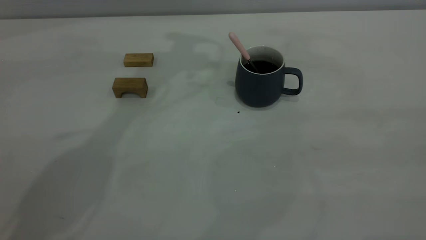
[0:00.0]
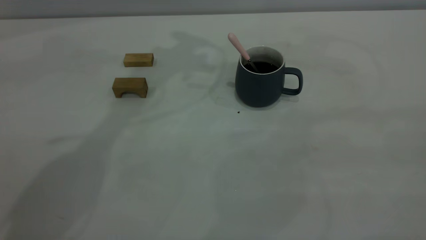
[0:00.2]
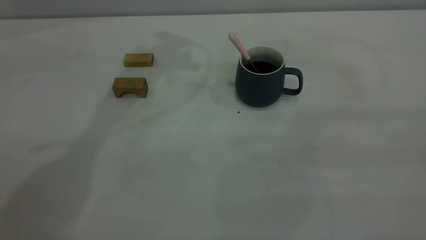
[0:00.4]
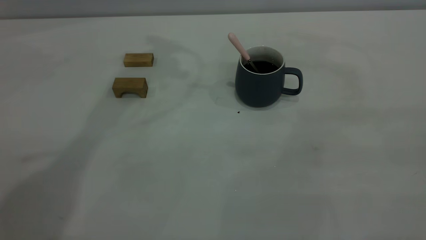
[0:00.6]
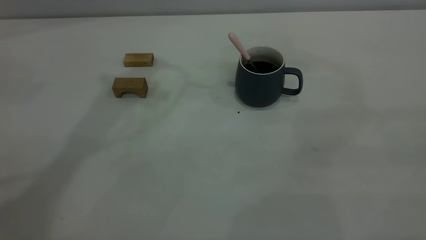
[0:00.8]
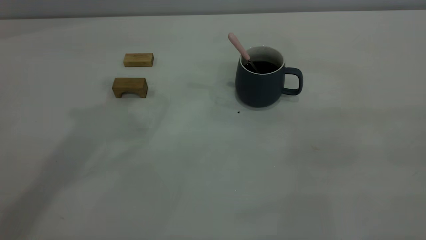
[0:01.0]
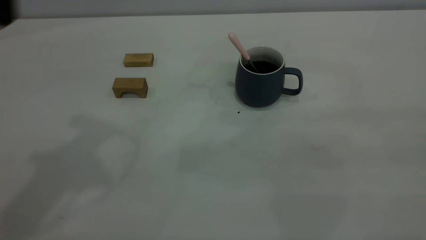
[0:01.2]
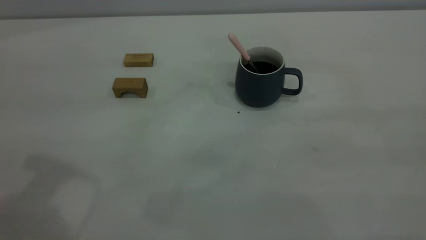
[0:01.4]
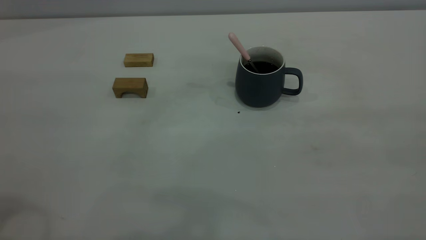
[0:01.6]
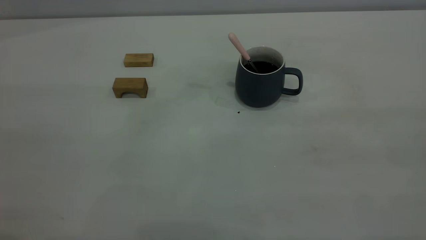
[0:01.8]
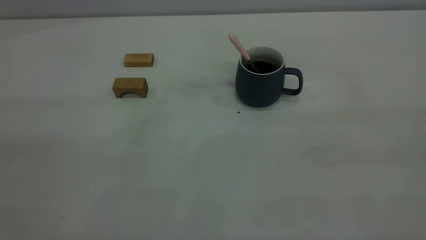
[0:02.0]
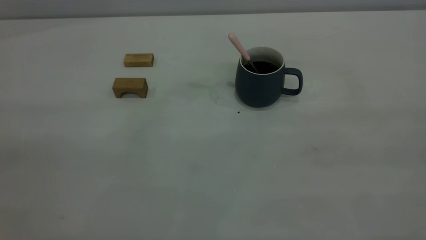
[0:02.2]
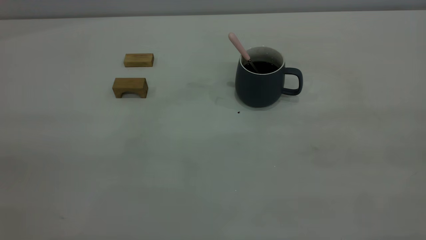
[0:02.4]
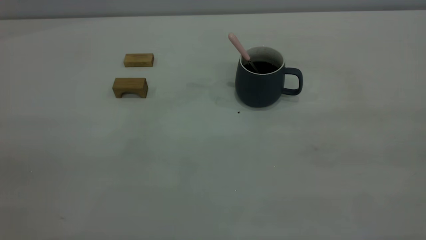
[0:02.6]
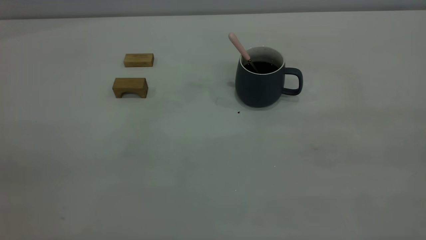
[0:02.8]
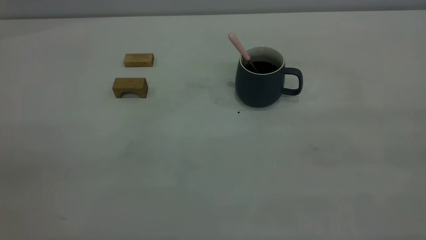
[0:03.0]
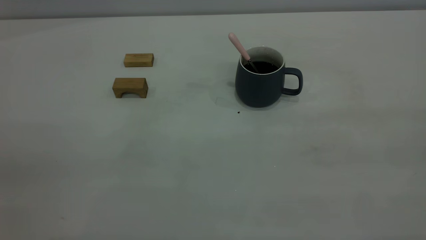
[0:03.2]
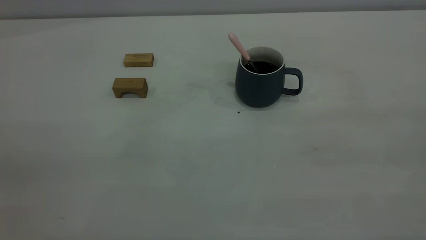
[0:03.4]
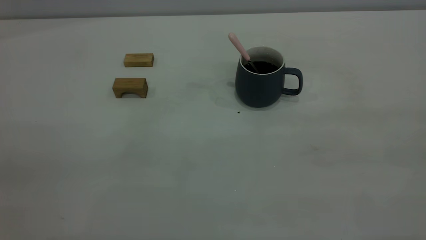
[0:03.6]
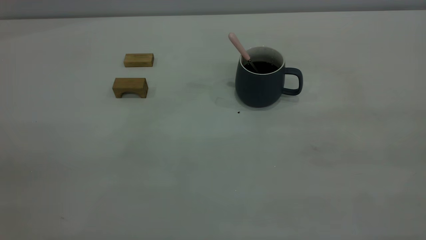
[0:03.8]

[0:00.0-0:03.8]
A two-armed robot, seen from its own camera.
0:02.6 to 0:03.8: Neither gripper changes place.

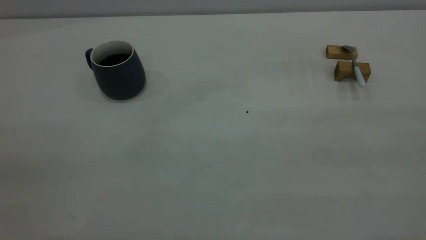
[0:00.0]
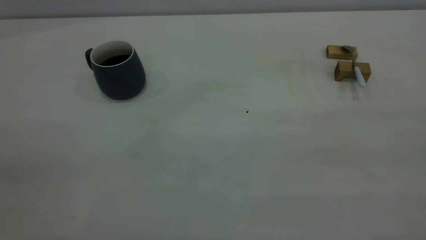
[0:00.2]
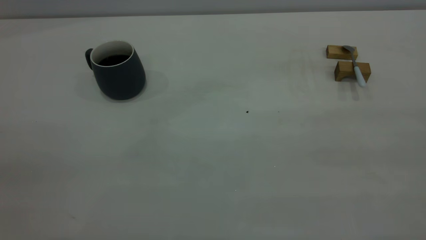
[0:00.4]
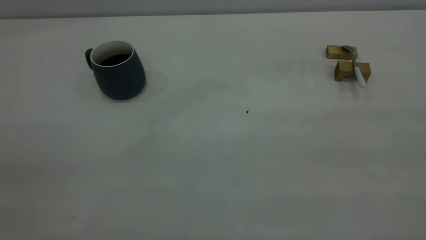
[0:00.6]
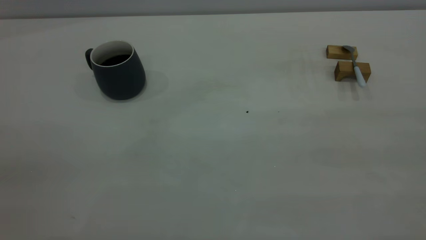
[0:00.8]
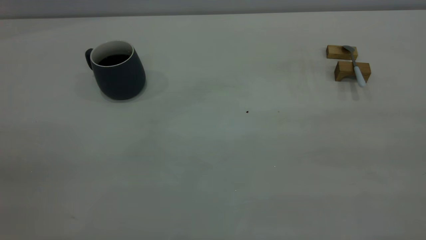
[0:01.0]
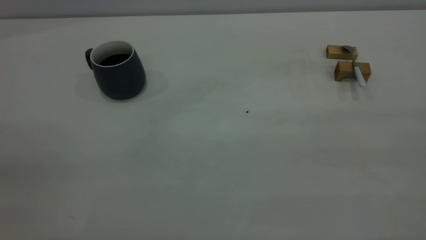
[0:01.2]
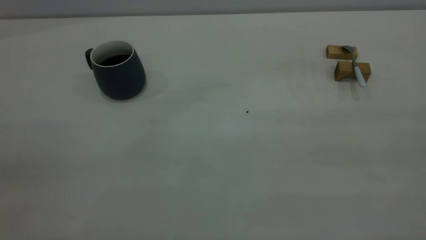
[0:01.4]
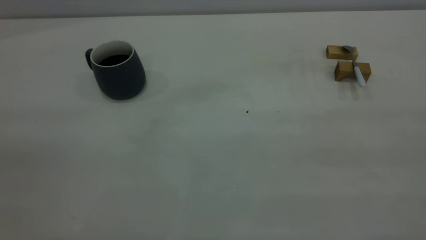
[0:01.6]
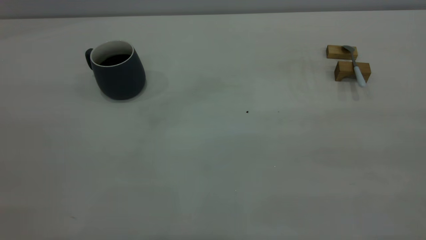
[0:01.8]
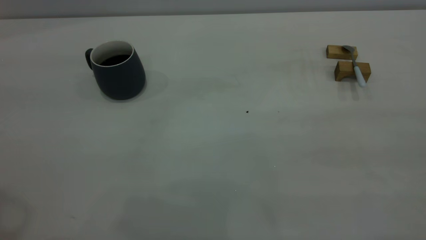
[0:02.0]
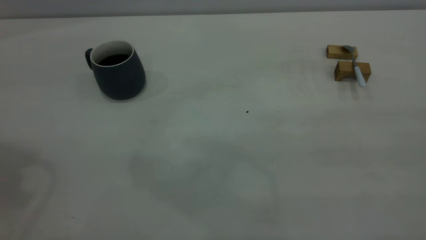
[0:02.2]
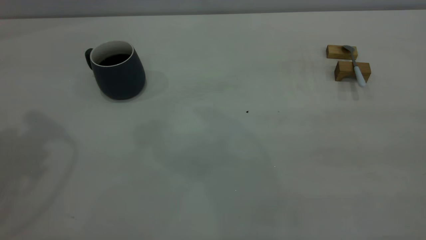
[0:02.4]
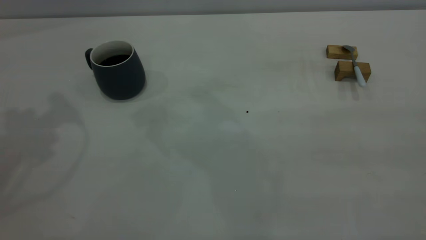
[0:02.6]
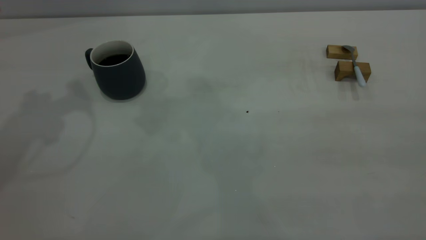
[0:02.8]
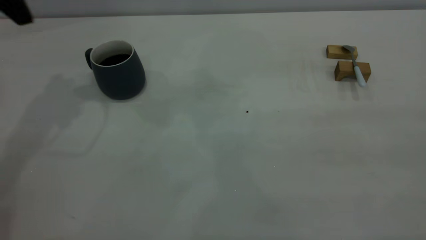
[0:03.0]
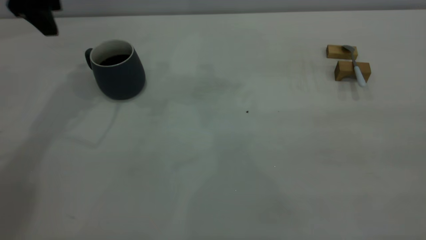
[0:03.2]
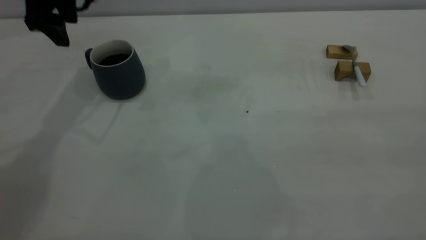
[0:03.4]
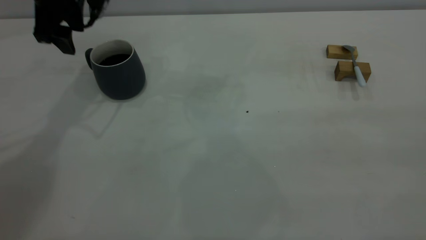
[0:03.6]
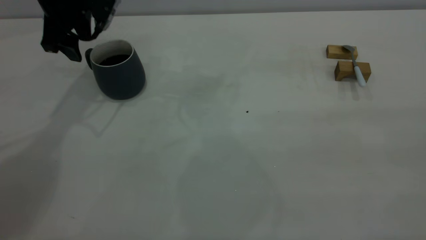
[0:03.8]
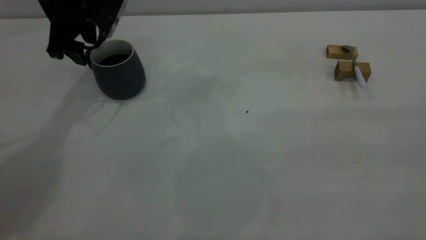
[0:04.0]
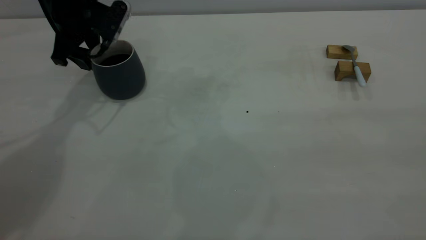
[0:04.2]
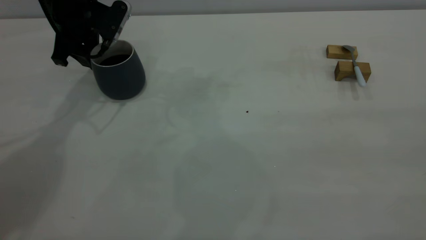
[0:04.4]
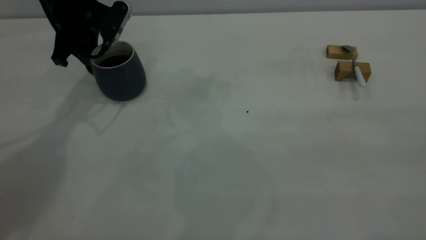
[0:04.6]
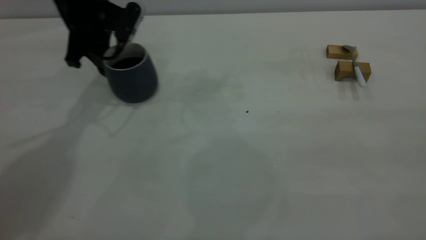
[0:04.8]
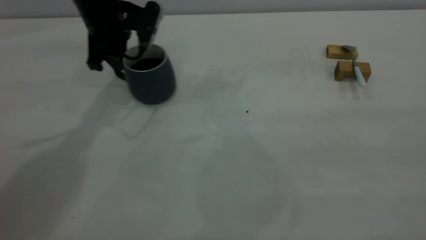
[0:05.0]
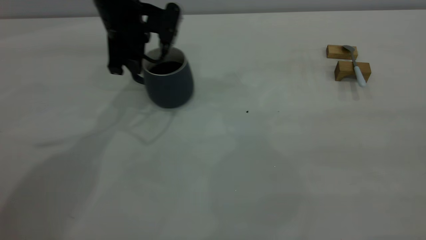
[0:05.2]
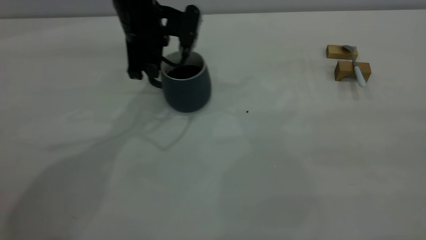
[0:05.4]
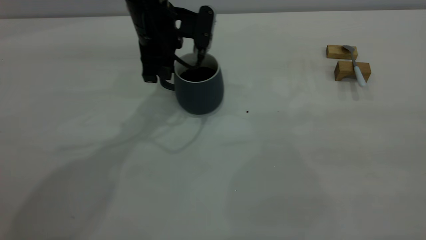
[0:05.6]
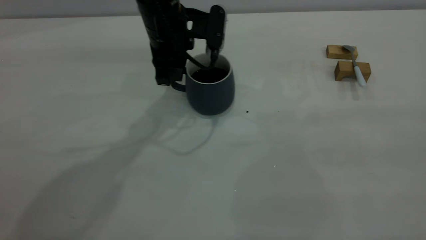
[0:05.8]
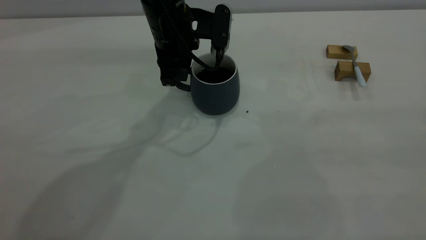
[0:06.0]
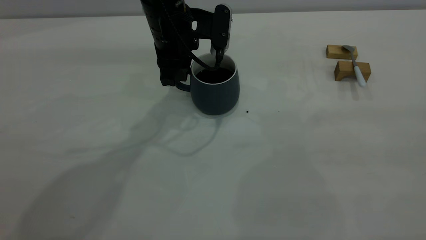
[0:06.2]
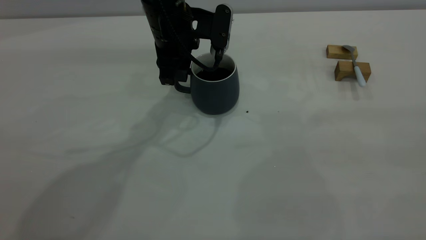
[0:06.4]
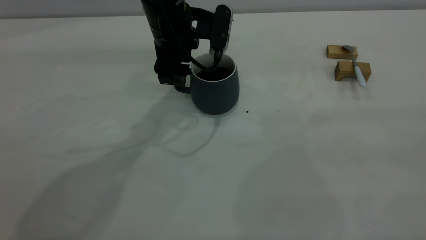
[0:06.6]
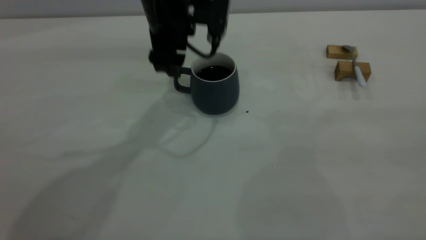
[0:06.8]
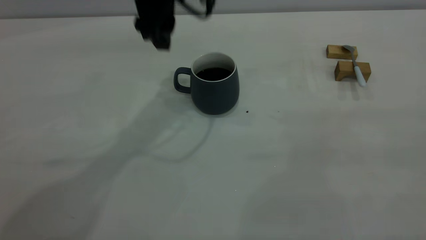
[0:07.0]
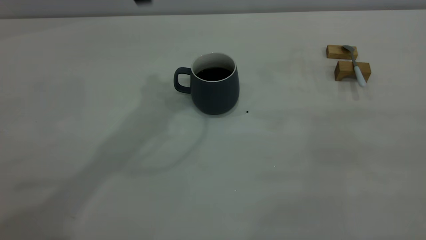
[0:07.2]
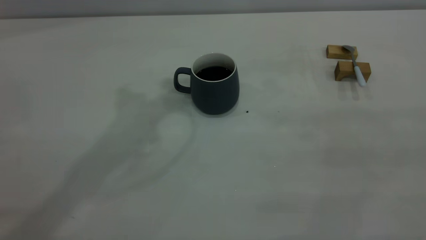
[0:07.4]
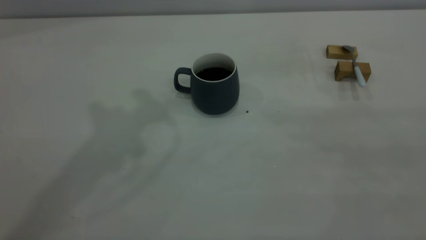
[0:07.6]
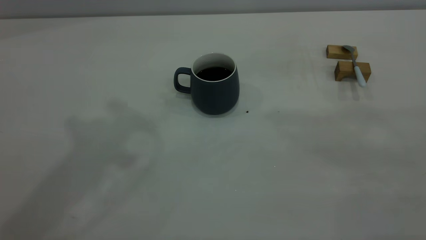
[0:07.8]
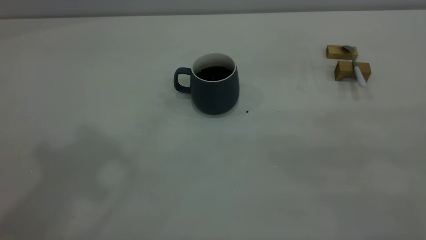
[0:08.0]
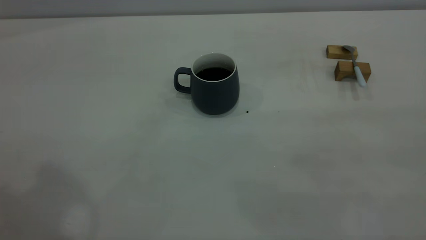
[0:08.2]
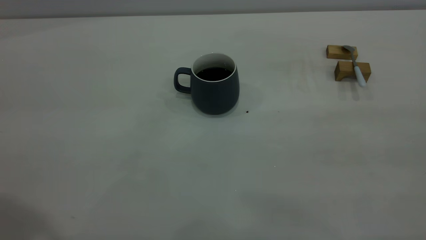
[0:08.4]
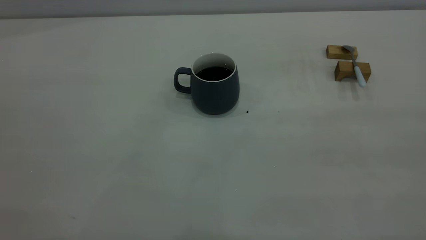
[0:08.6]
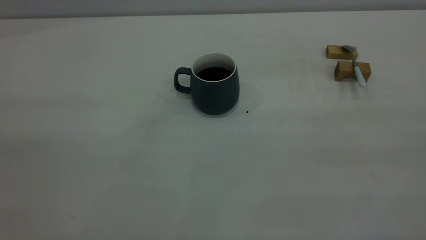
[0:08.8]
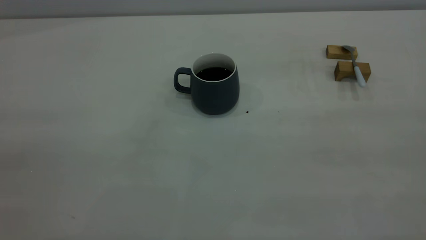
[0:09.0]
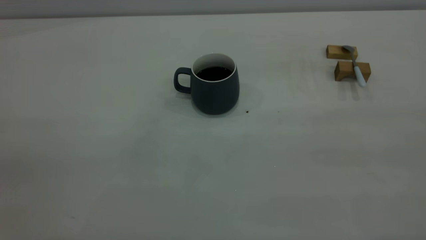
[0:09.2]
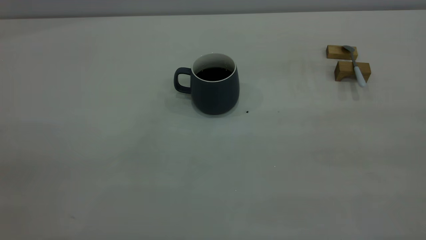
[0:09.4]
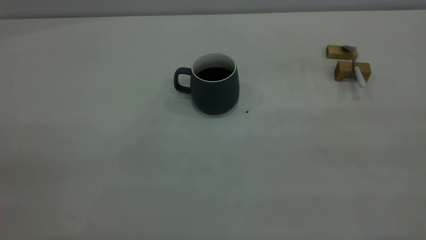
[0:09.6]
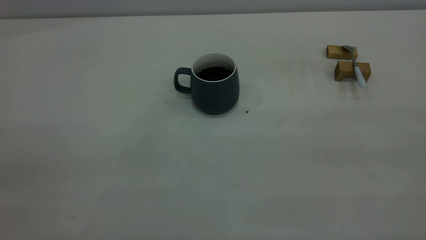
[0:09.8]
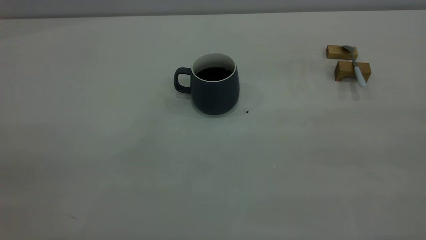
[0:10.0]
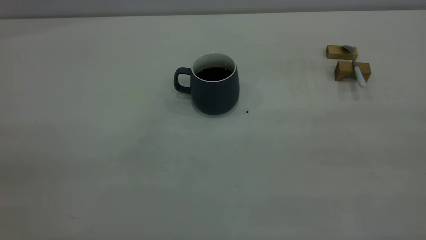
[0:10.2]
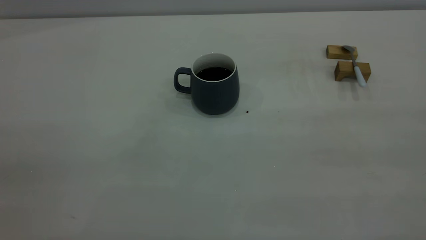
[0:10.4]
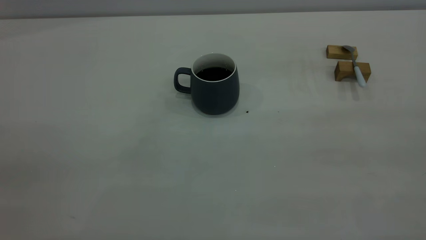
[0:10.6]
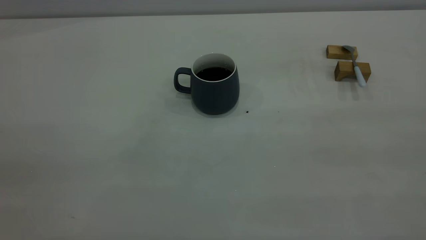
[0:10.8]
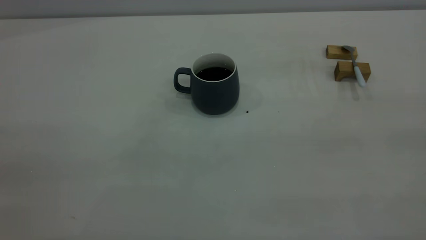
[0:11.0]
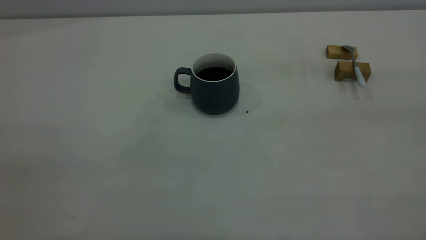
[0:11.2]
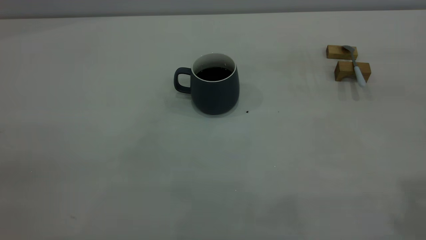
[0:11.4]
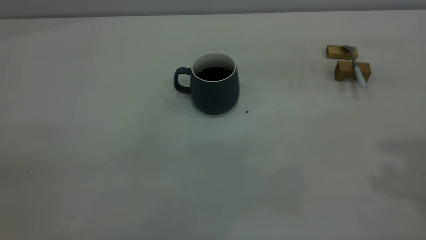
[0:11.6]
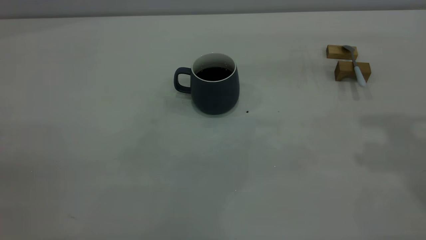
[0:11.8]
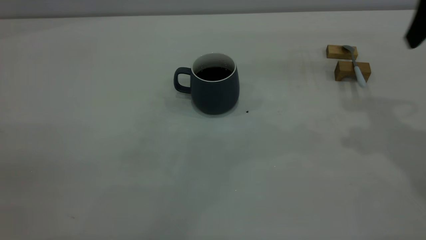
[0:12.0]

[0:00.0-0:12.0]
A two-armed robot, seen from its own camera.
Step, 0:00.0 to 0:07.0: Move the cup with coffee to the center of view.
0:03.0 to 0:04.4: The left gripper is displaced downward and forward by roughly 15 cm, and closes its fingers.
0:04.4 to 0:06.0: The left gripper heads to the right, covering approximately 20 cm.
0:06.0 to 0:07.6: The left gripper travels upward by about 30 cm, and opens and closes again.
0:10.4 to 0:12.0: The right gripper moves forward, roughly 30 cm, and opens its fingers.

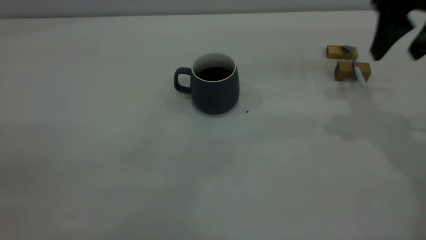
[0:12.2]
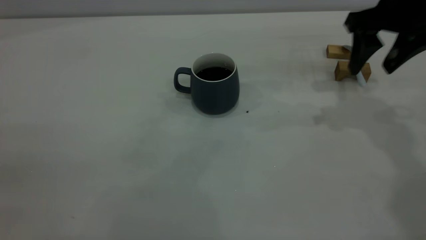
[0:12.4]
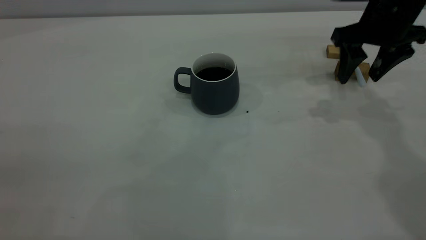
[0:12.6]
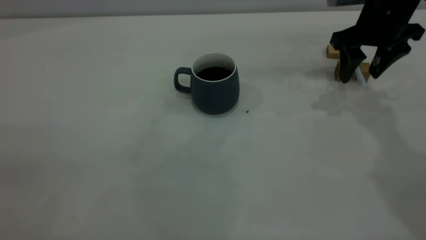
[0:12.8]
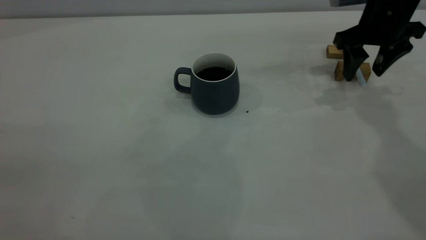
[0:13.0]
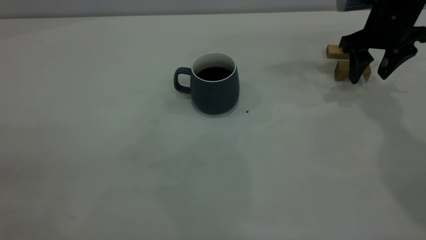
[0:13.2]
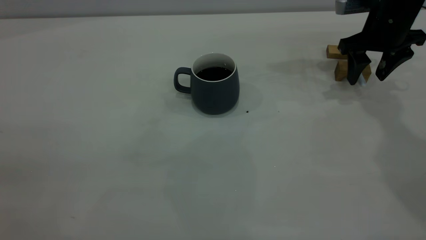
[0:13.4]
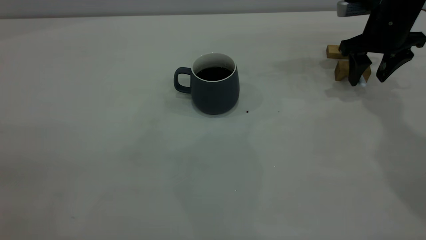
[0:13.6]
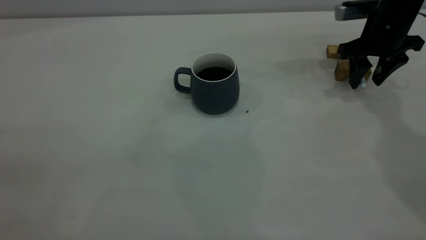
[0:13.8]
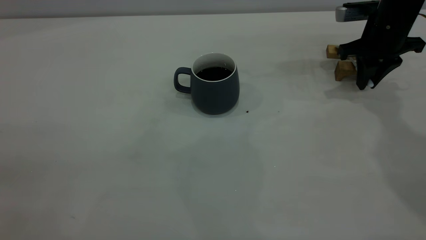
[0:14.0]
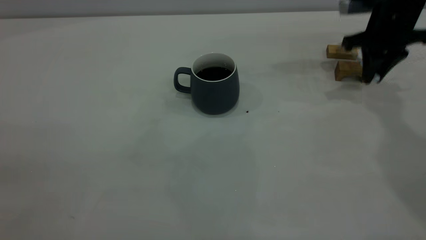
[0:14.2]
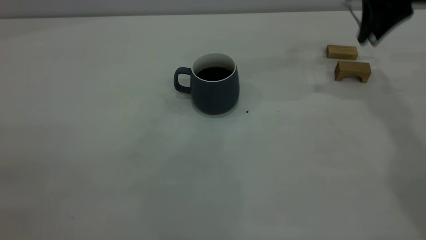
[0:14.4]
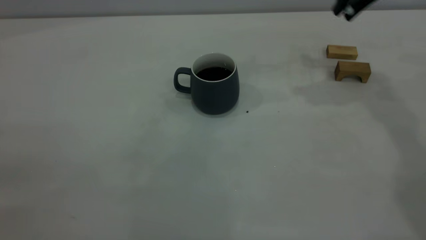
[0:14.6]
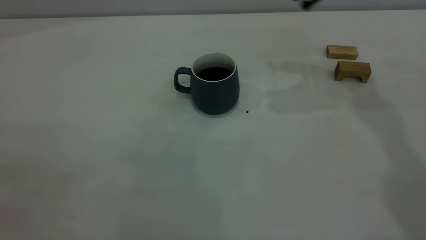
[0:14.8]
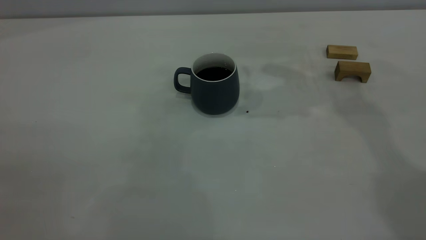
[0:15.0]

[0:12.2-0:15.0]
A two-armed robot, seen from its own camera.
Step, 0:12.2 to 0:14.2: Pick up the spoon.
0:12.2 to 0:13.6: The right gripper moves downward and forward, roughly 15 cm.
0:13.6 to 0:15.0: The right gripper is displaced upward and to the left by about 20 cm, and closes up.
